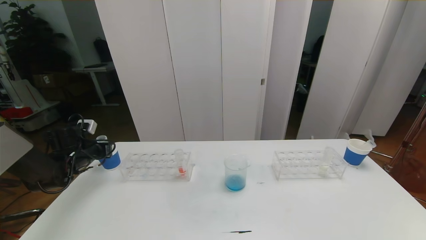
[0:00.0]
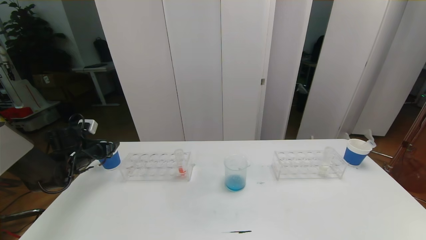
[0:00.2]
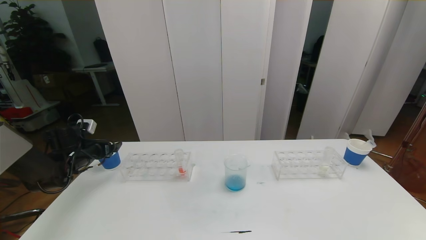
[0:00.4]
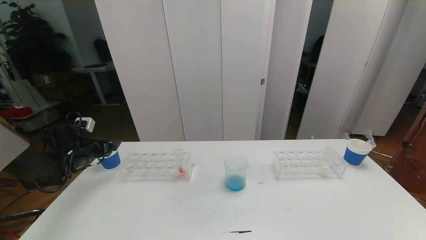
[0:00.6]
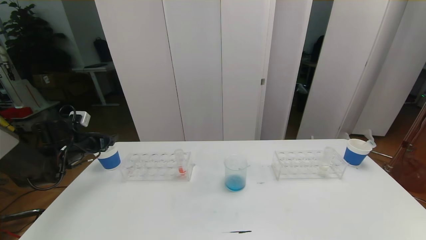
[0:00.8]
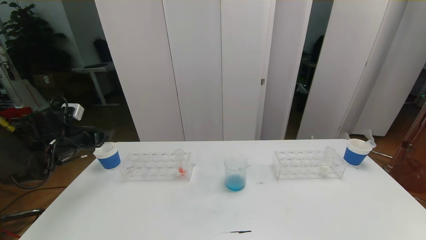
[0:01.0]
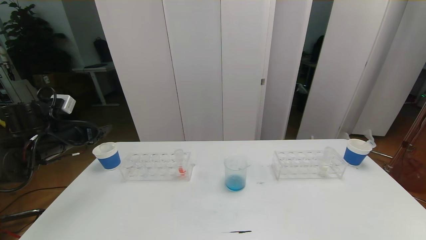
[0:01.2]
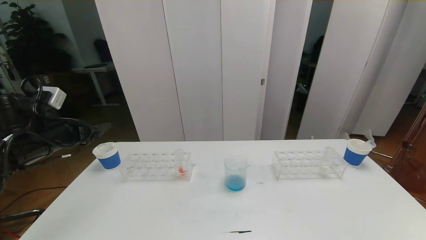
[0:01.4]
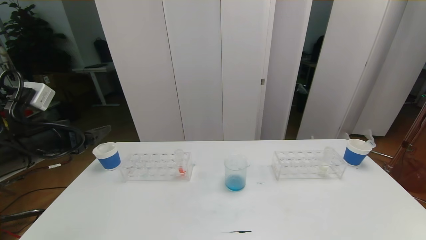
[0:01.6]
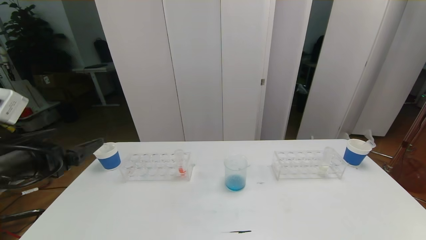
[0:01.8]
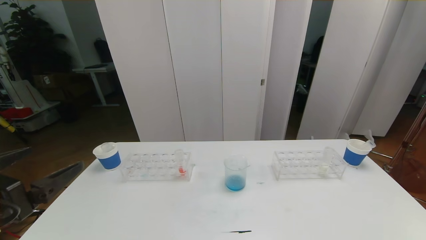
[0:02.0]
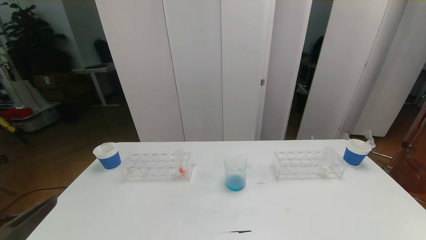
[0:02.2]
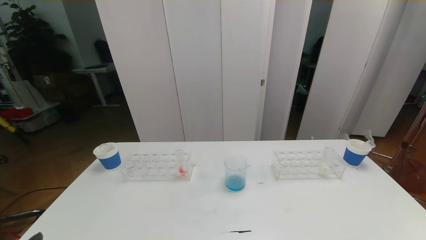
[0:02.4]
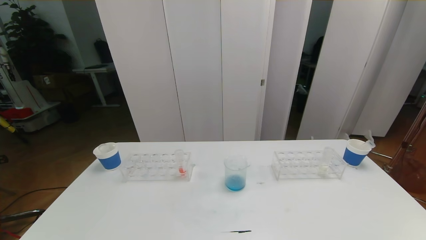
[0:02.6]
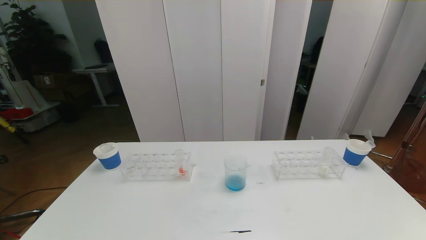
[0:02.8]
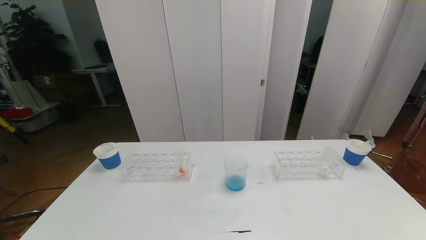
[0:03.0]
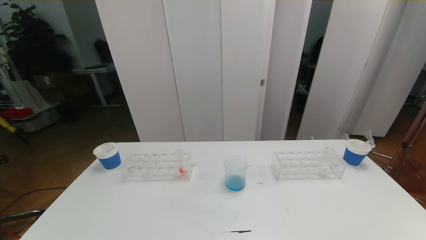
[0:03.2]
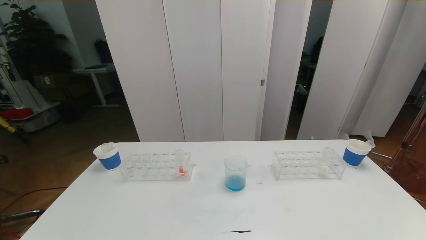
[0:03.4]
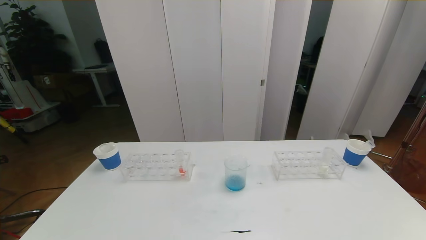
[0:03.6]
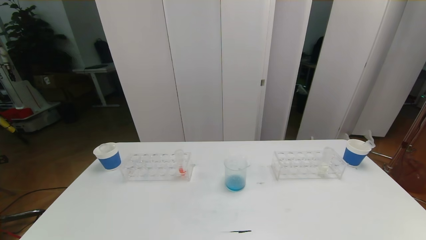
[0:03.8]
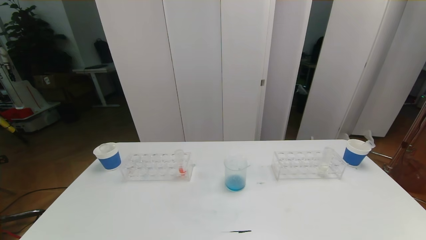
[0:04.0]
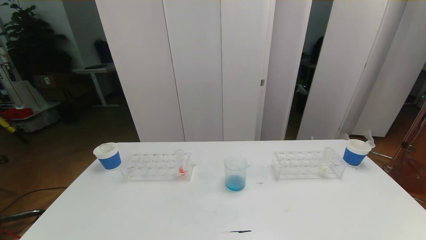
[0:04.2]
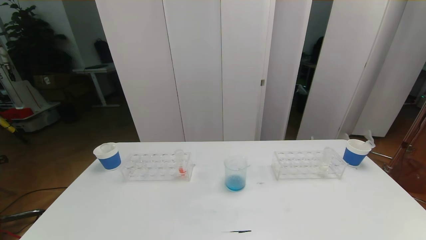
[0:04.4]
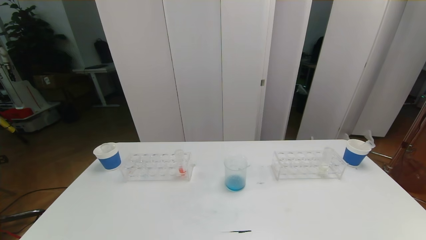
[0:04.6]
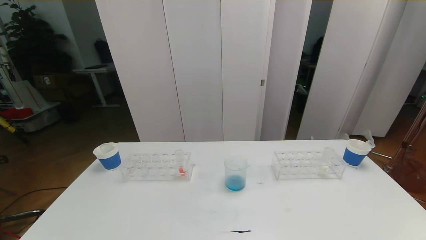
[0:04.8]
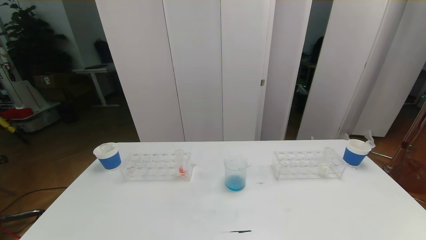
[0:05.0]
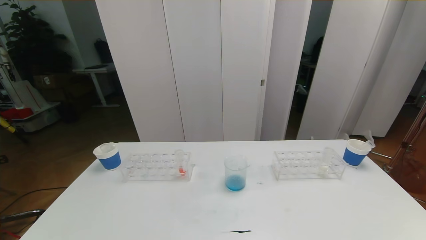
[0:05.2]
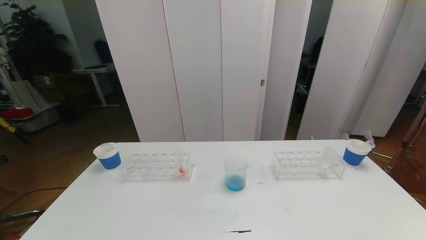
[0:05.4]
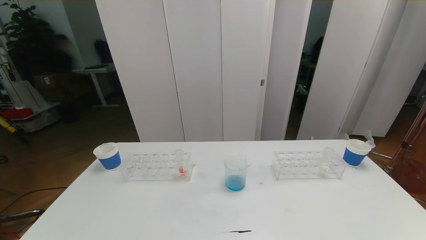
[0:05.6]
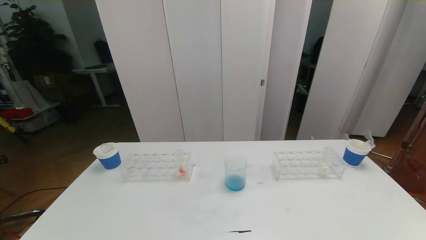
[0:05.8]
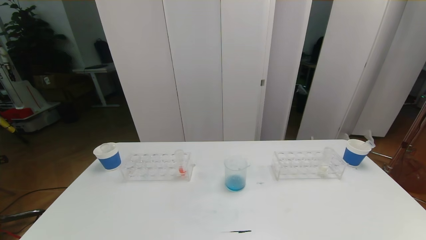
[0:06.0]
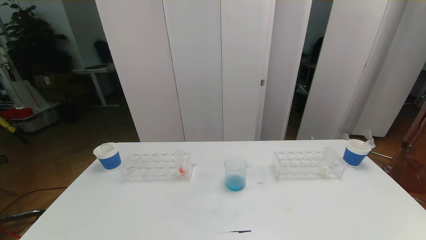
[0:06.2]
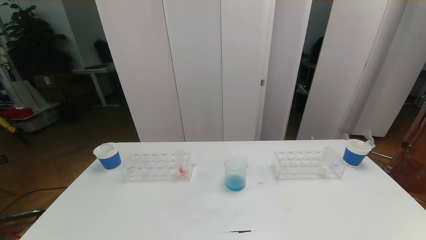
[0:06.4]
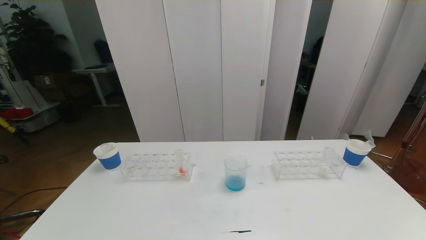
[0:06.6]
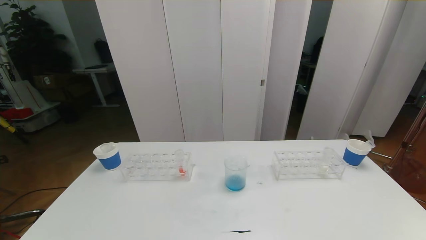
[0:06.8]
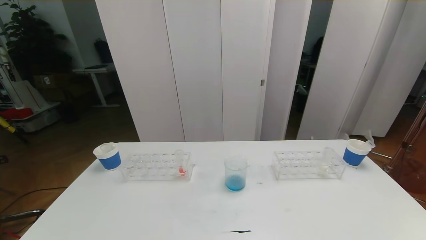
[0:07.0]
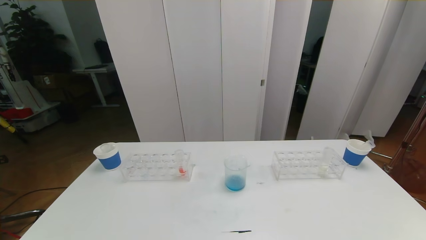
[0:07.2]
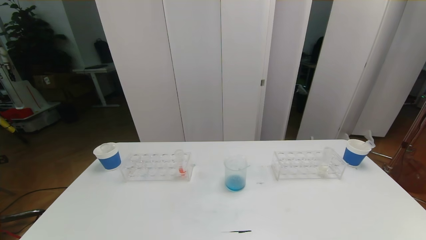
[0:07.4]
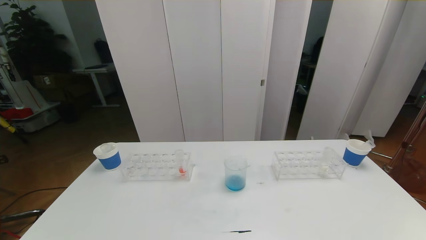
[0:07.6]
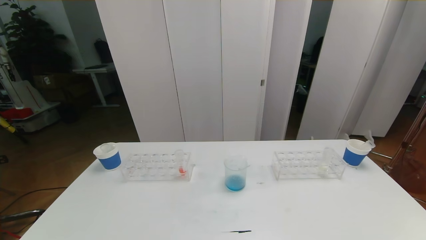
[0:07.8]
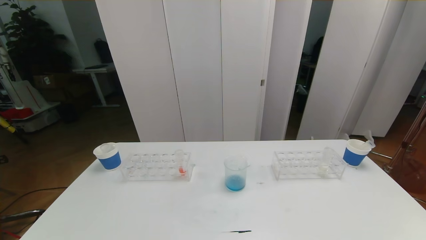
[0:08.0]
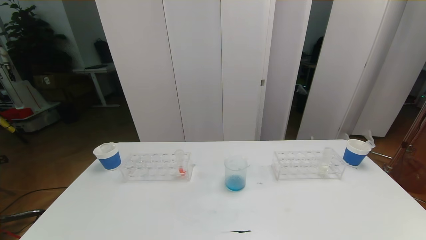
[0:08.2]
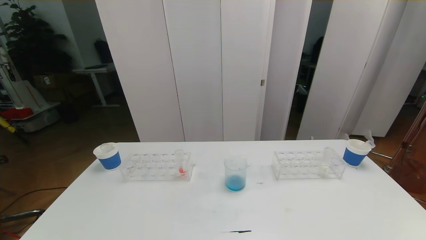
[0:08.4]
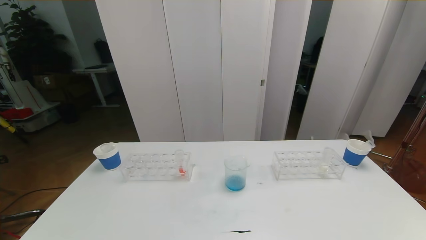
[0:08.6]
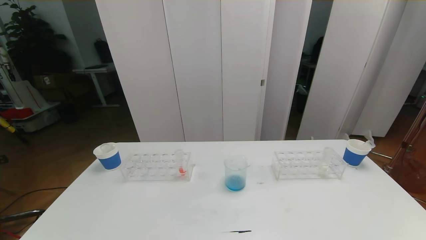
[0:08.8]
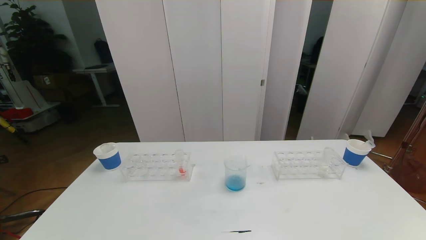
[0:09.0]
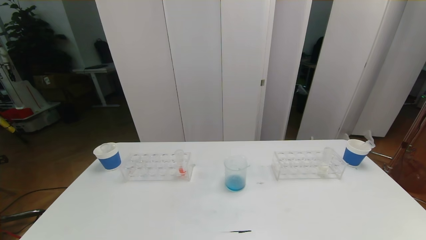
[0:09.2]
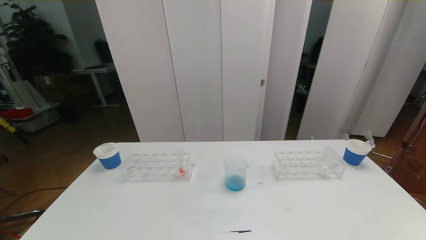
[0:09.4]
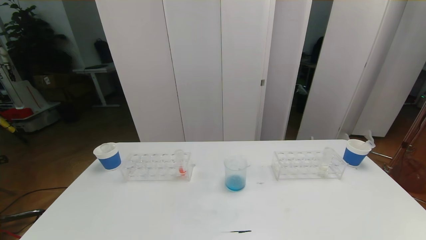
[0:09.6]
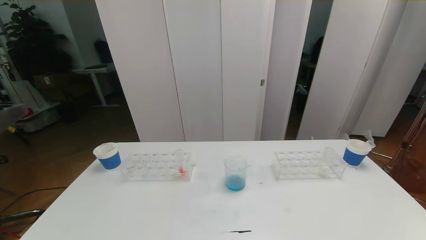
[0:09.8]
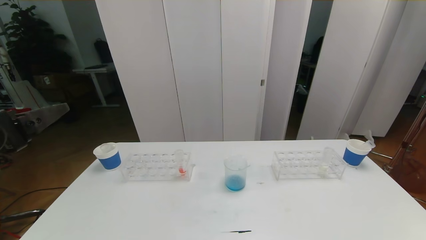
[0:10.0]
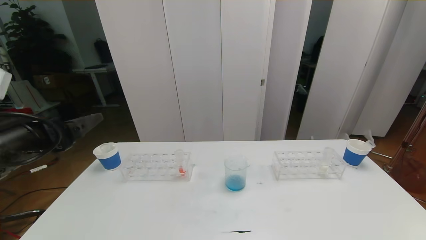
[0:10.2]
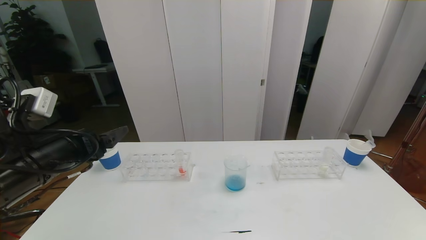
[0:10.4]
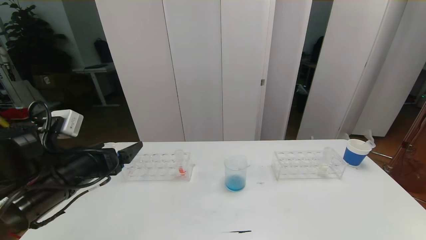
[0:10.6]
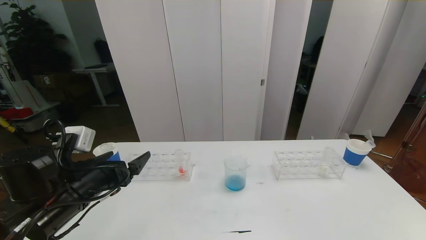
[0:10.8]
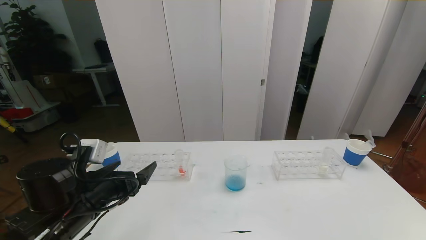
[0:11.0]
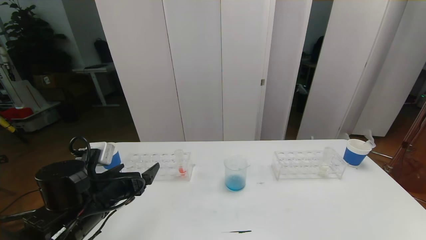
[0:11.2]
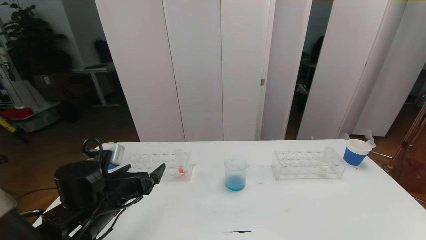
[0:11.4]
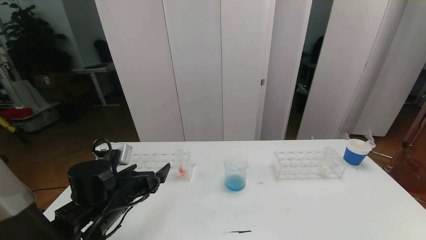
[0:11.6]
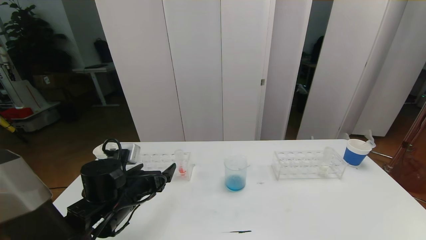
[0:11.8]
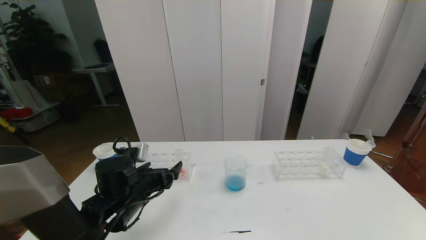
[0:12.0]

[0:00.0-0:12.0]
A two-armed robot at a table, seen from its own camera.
Task of the whole recording: pick up the test tube with red pigment the test tube with blue pigment and the test tube with white pigment by grippers and pour them into the beaker.
Step, 0:00.0 to 0:04.6: Pour the blue reagent into the graduated cylinder and place the test tube into the paper cup.
0:00.0 to 0:01.6: The left gripper goes roughly 25 cm backward, upward and to the right, and opens.
0:01.6 to 0:03.0: The left gripper travels backward and downward by approximately 30 cm.
0:04.4 to 0:07.6: The two grippers keep their place.
0:09.0 to 0:10.4: The left gripper moves forward, approximately 25 cm.
0:10.4 to 0:12.0: The left gripper shifts approximately 15 cm downward, to the right and forward.

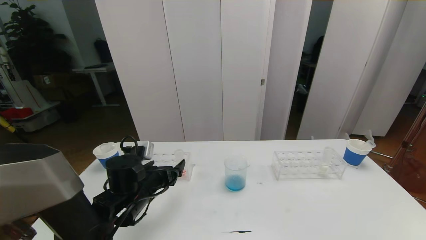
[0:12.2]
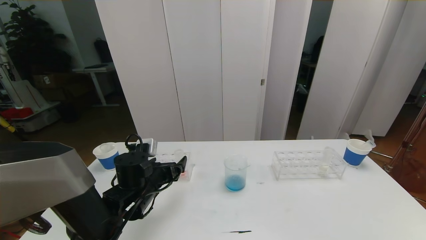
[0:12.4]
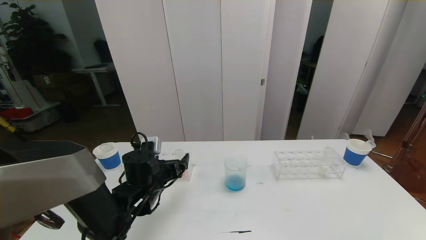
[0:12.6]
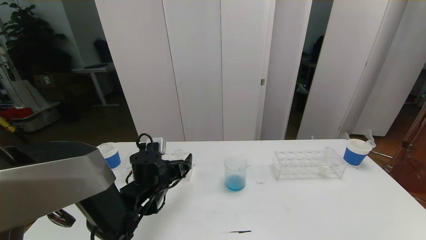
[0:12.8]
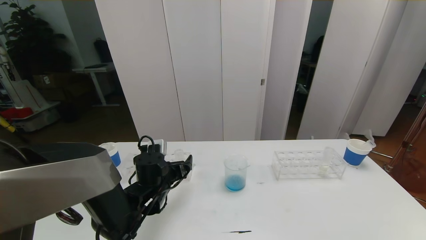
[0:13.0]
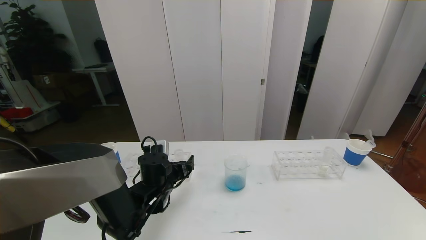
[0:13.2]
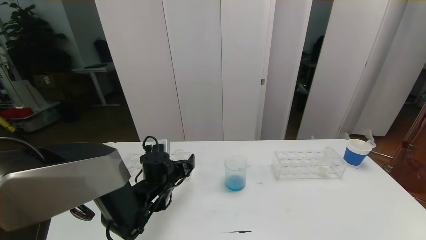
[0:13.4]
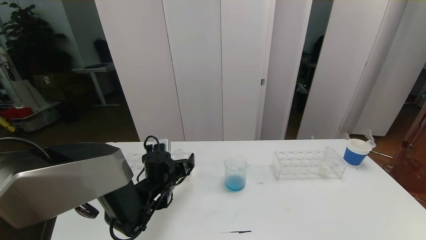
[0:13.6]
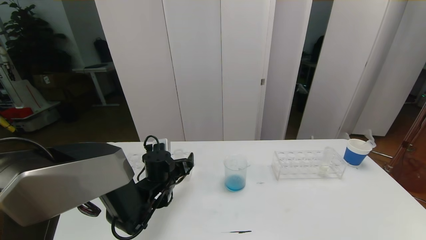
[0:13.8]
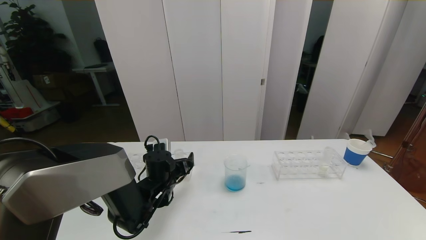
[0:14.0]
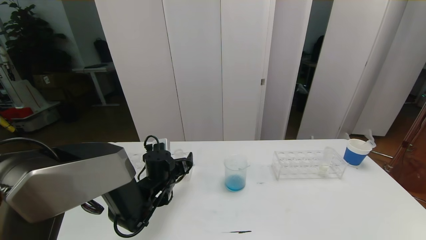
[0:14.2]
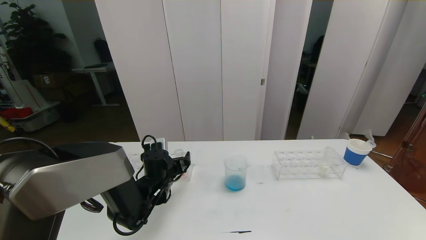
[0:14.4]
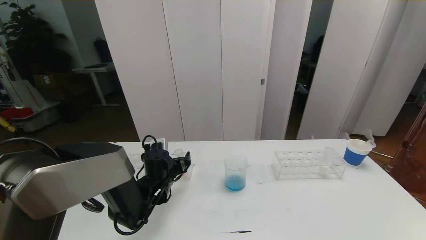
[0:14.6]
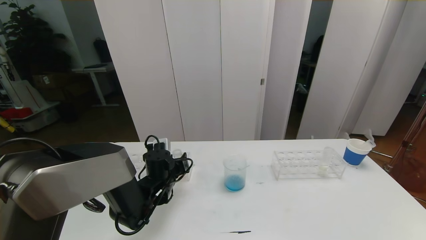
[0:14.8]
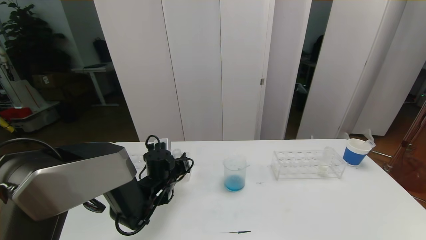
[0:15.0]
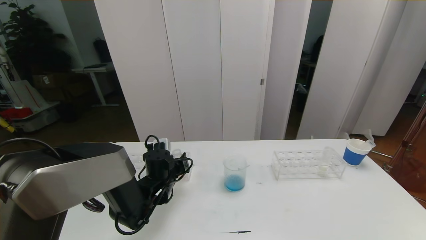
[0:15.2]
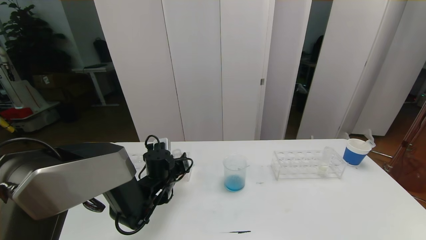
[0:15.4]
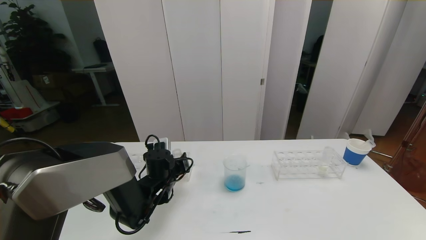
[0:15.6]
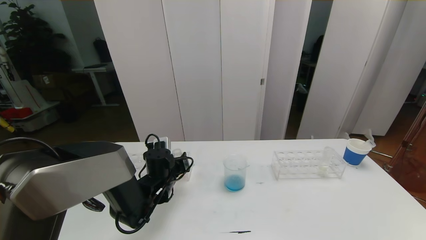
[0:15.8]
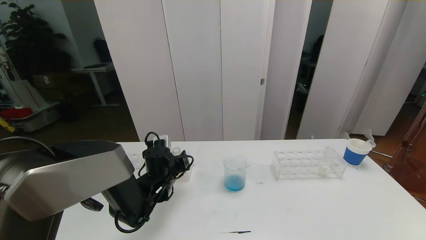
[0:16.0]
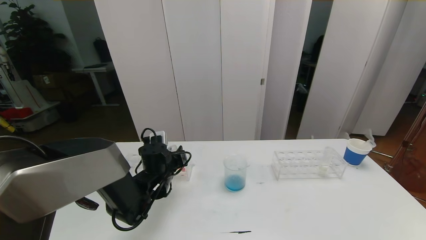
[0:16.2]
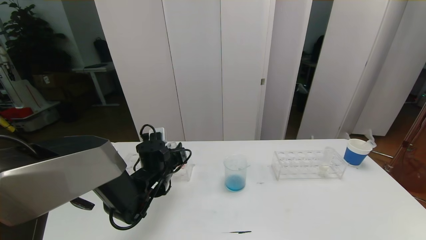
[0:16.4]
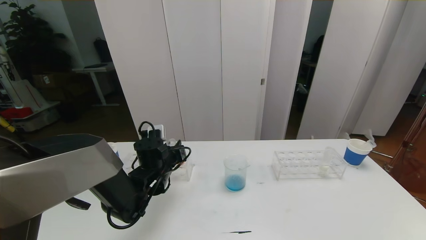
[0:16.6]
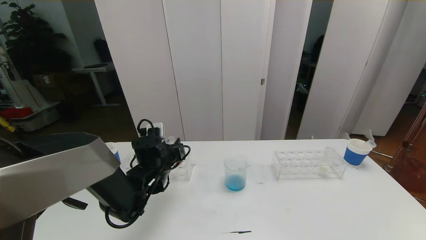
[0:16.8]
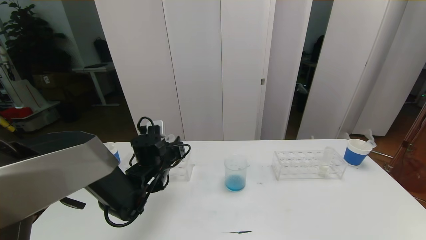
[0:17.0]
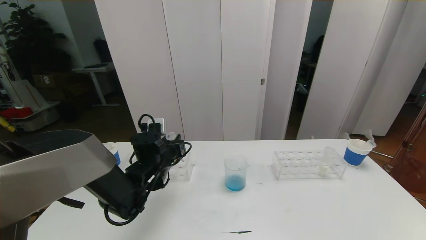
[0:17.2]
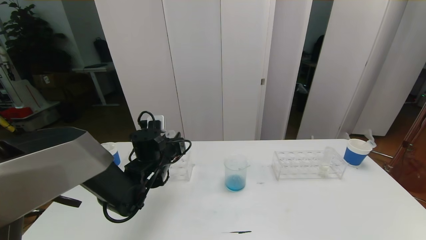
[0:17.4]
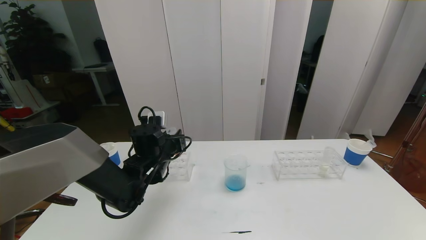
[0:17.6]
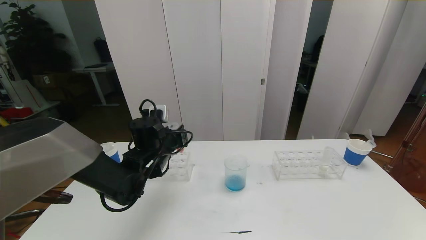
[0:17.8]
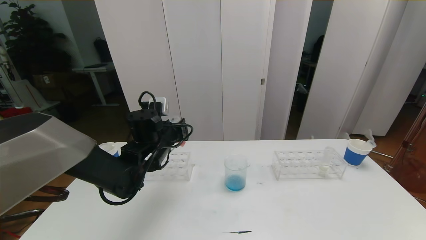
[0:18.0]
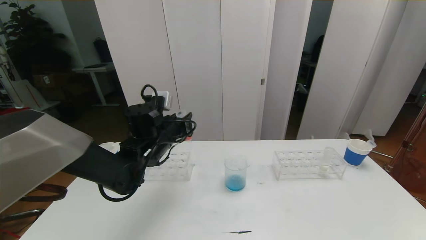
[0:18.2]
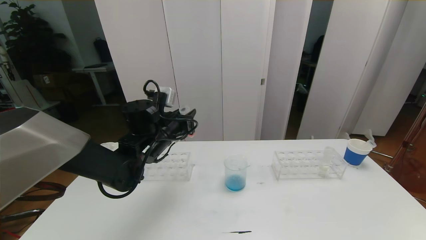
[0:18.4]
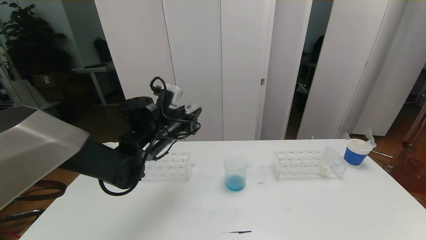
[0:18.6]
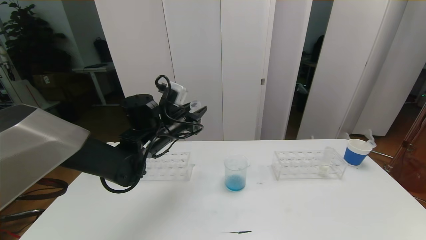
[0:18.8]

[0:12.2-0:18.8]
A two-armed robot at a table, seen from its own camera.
Task of the whole recording: pick up the test tube with red pigment the test tube with blue pigment and the test tube with white pigment by grippers and pour them into the beaker.
0:12.2 to 0:13.8: The left gripper travels forward by some 5 cm.
0:13.8 to 0:15.4: The left gripper closes up.
0:15.4 to 0:17.2: The left gripper goes approximately 5 cm upward.
0:17.2 to 0:18.8: The left gripper is displaced upward by approximately 10 cm.
